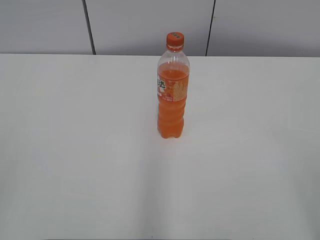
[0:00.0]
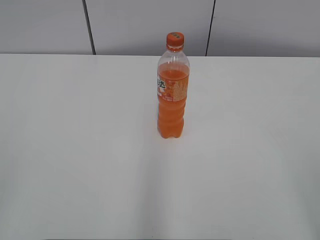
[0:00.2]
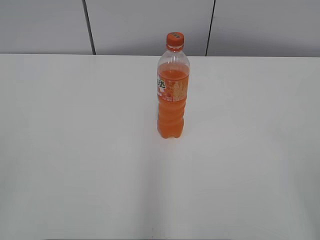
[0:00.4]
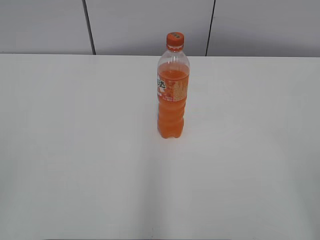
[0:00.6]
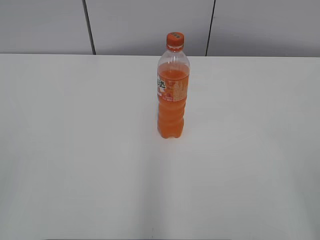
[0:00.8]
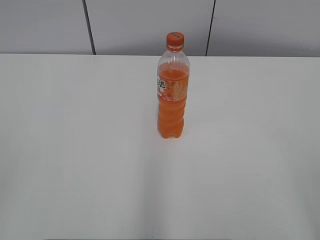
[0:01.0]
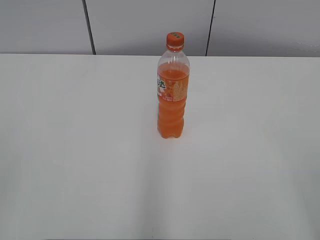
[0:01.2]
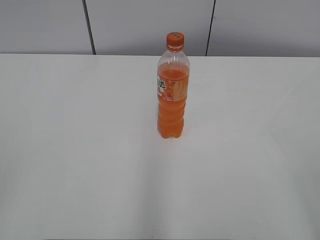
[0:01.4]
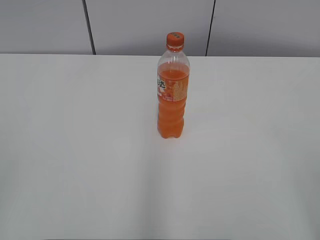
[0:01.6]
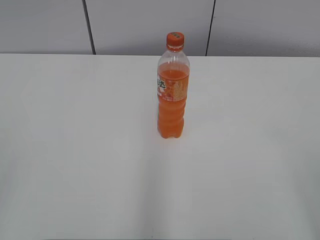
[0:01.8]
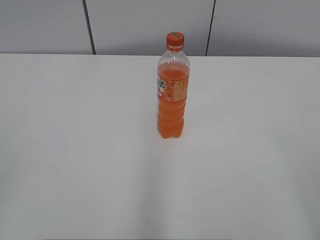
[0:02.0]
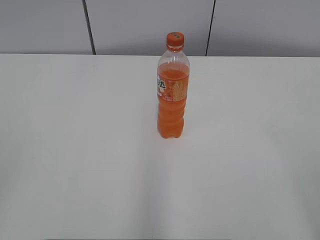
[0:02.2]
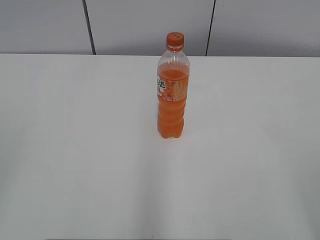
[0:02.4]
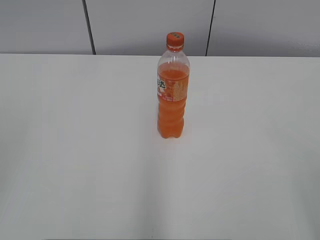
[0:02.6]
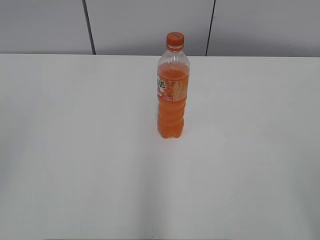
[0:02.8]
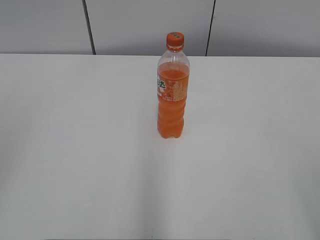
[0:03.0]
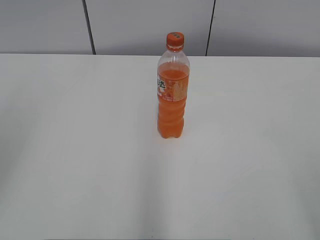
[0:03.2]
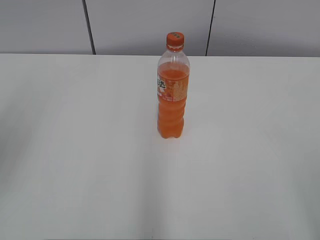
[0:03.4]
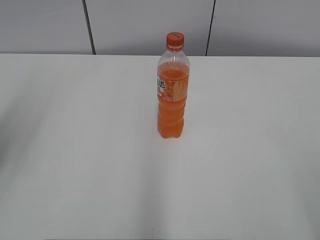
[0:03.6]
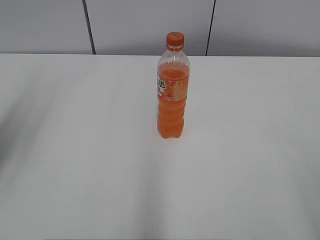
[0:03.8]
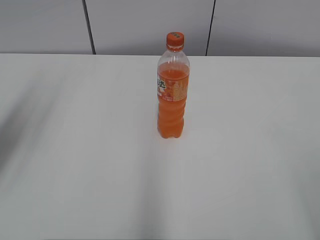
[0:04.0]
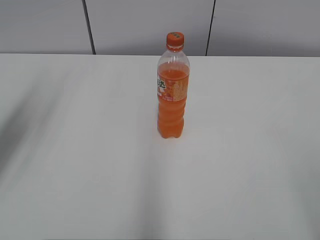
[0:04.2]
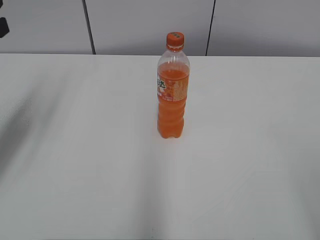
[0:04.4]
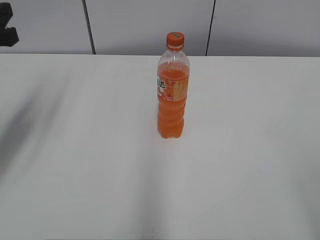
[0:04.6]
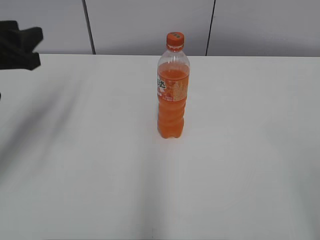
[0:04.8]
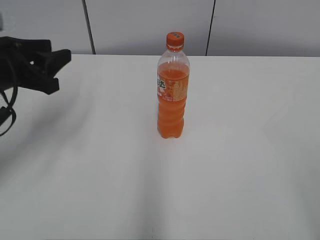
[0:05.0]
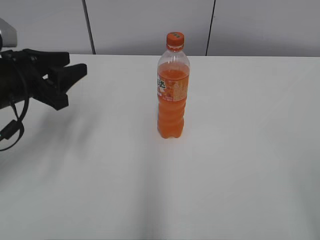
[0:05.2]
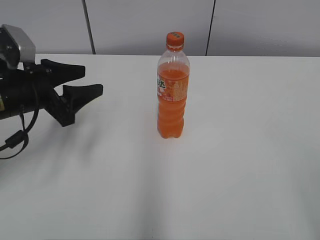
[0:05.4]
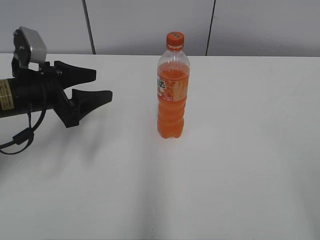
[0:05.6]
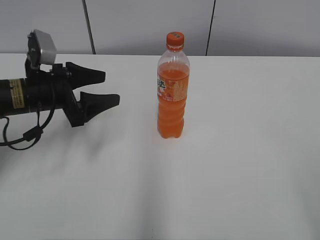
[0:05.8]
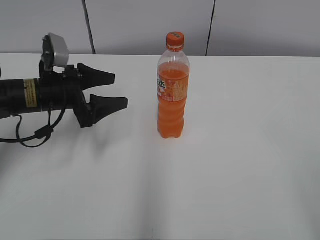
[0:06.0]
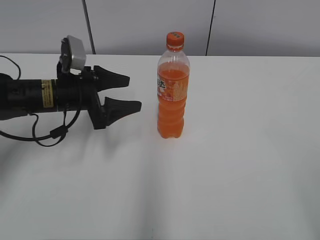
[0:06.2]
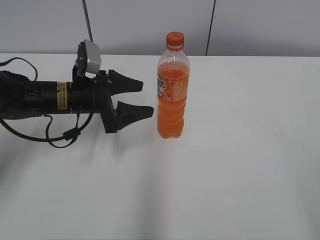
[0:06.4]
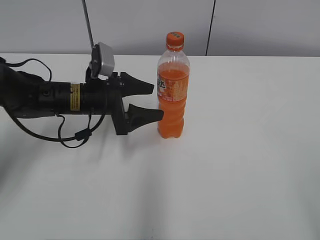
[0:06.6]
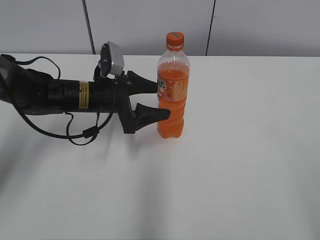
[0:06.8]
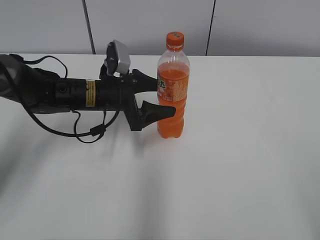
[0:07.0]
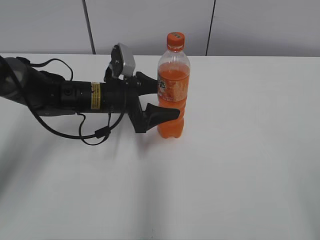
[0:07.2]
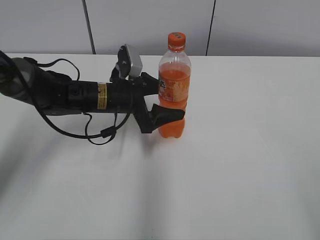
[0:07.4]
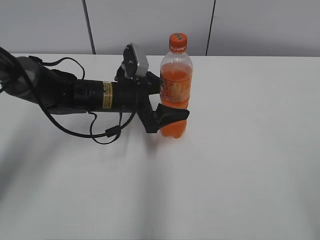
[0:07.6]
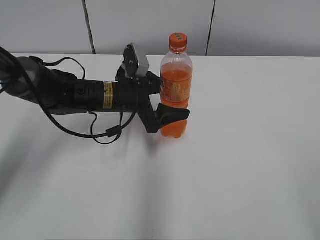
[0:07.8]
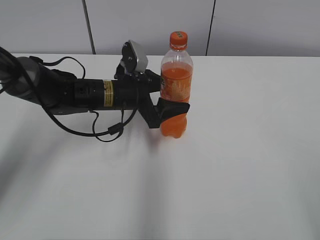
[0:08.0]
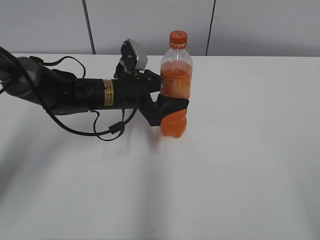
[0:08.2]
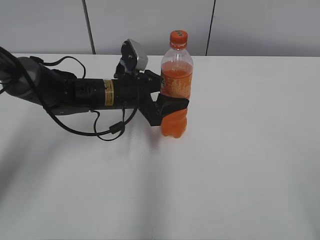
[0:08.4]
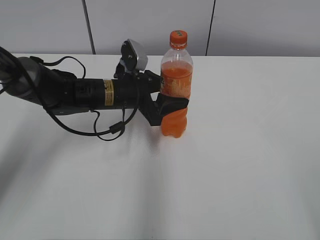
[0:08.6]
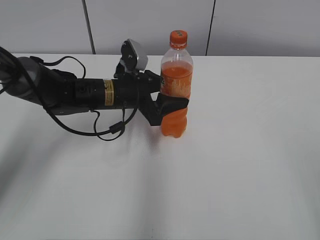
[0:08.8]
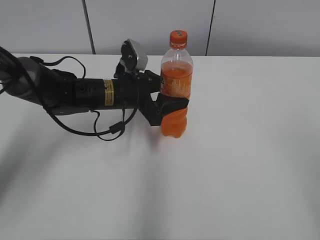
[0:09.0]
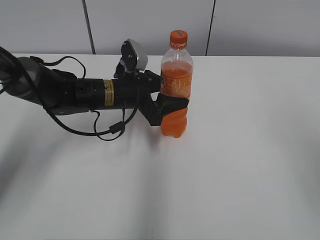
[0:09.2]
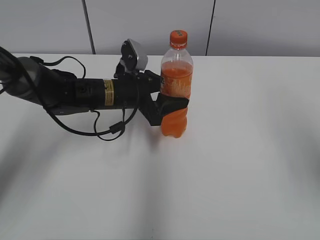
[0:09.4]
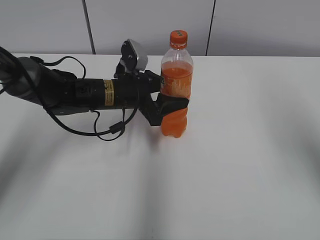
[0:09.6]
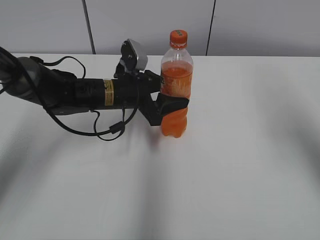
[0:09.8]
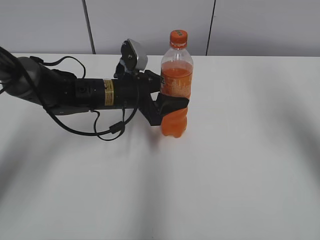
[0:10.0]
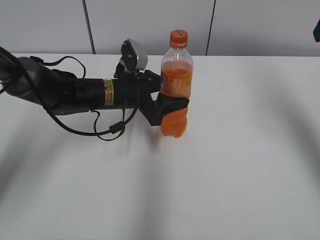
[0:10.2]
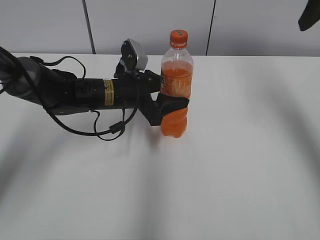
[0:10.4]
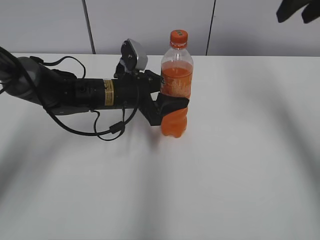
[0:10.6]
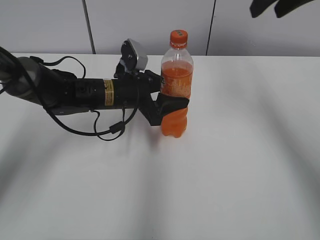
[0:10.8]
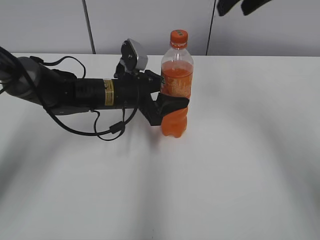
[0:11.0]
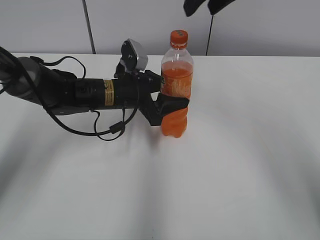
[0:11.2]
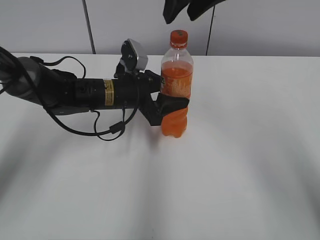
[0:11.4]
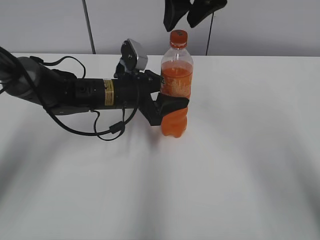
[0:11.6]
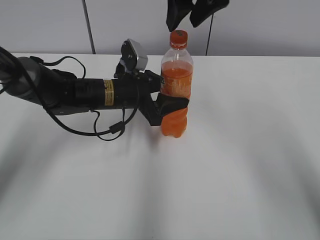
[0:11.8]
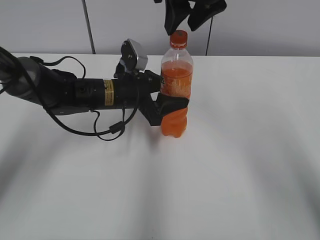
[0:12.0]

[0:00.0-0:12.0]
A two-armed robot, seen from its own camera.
Step, 0:00.0 to 0:08.8: Grab the Mirinda with the left hand.
0:03.0 to 0:04.4: The left gripper is displaced forward and downward by approximately 25 cm.
0:04.4 to 0:06.0: The left gripper heads downward, to the right and forward, covering some 20 cm, and opens its fingers.
0:06.0 to 0:07.6: The left gripper shifts about 10 cm to the right.
0:07.6 to 0:09.0: The right gripper goes roughly 5 cm upward, and closes up; the left gripper closes up.
0:09.0 to 0:10.4: The right gripper is displaced forward by roughly 30 cm.
0:10.4 to 0:12.0: The right gripper shifts roughly 20 cm to the left.

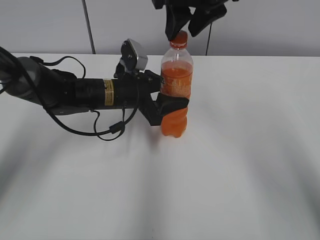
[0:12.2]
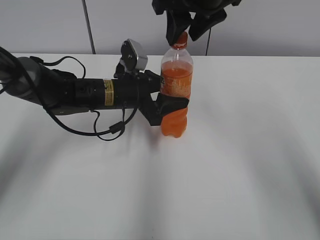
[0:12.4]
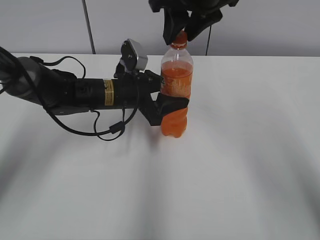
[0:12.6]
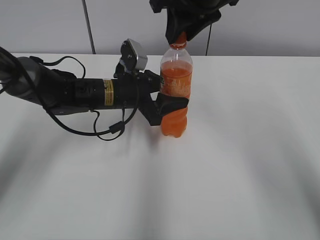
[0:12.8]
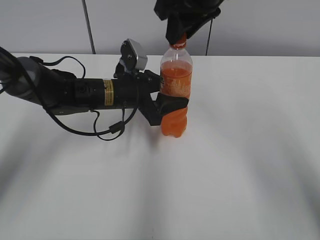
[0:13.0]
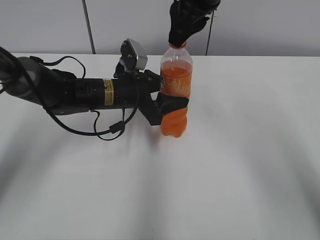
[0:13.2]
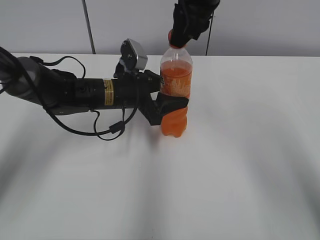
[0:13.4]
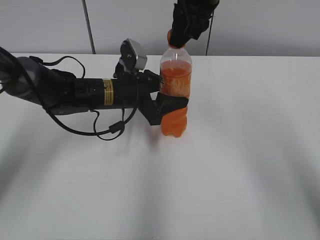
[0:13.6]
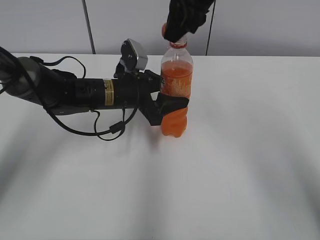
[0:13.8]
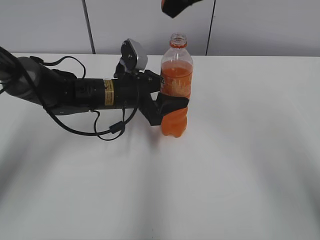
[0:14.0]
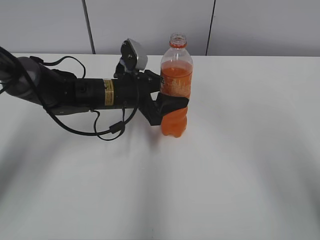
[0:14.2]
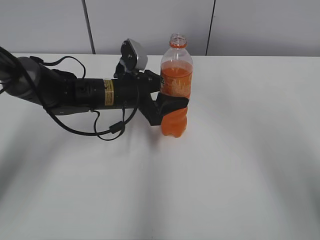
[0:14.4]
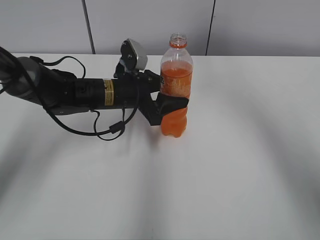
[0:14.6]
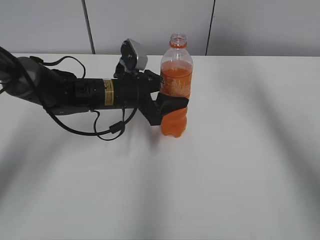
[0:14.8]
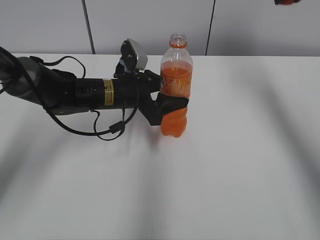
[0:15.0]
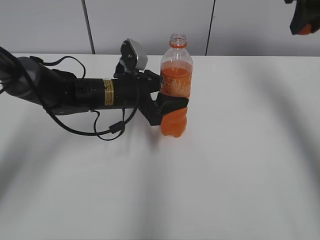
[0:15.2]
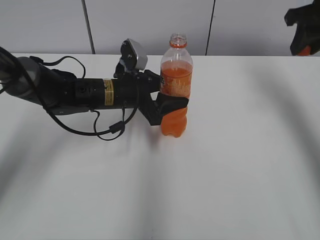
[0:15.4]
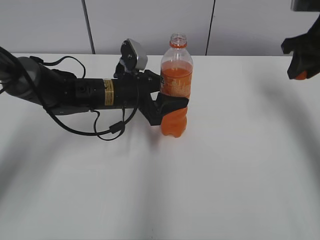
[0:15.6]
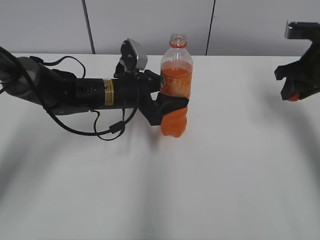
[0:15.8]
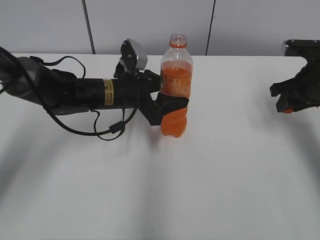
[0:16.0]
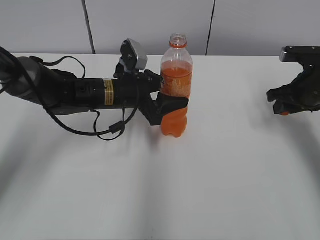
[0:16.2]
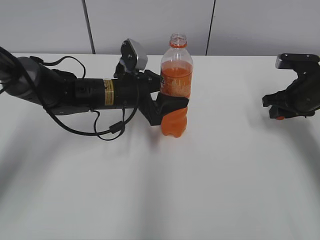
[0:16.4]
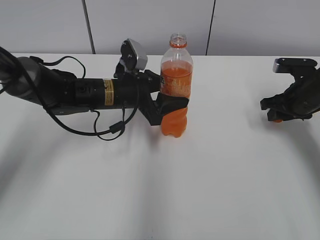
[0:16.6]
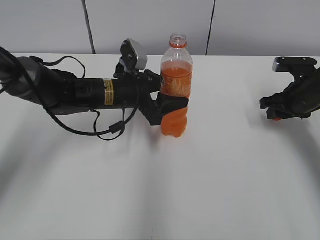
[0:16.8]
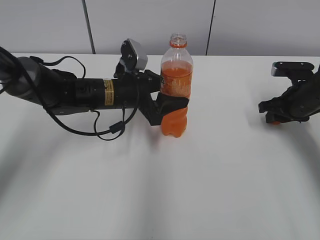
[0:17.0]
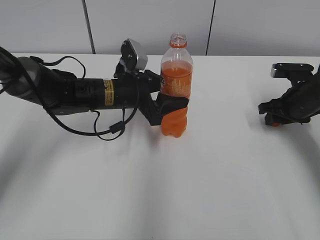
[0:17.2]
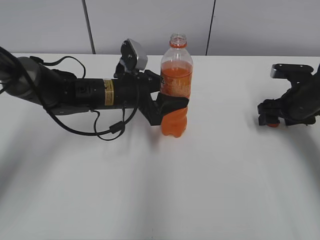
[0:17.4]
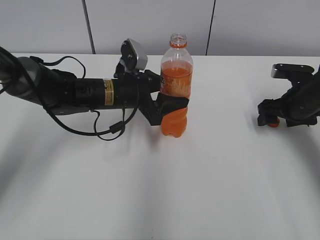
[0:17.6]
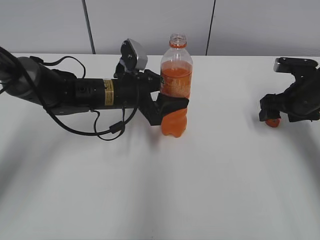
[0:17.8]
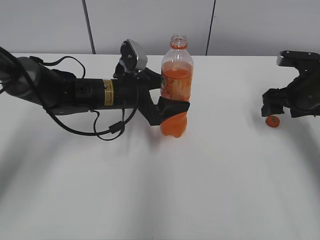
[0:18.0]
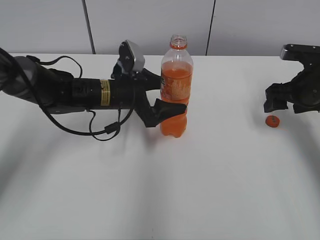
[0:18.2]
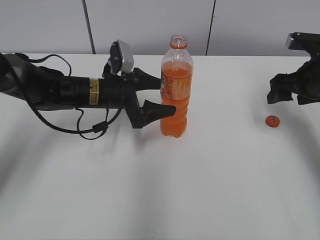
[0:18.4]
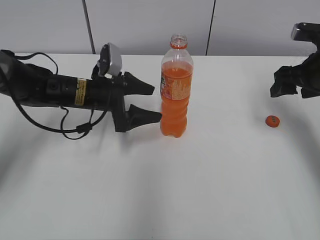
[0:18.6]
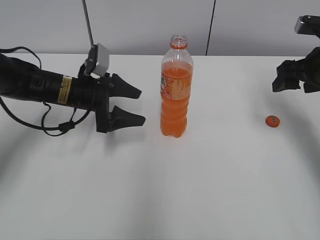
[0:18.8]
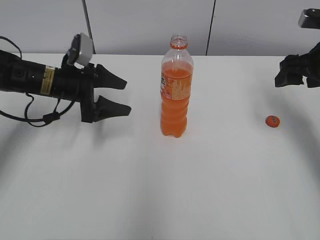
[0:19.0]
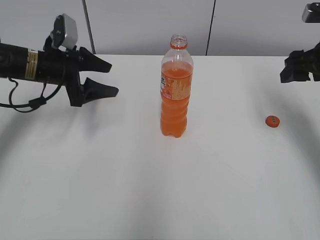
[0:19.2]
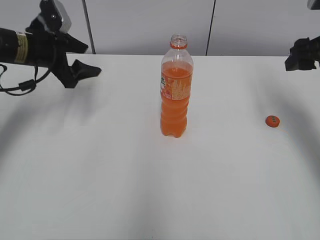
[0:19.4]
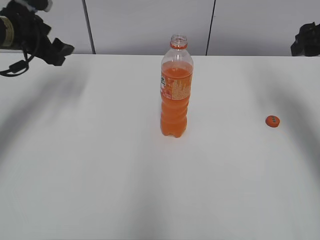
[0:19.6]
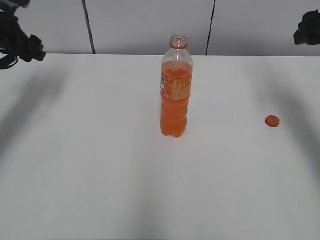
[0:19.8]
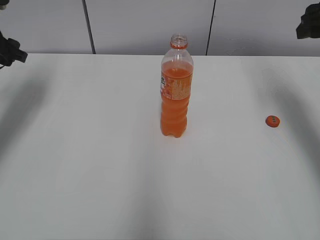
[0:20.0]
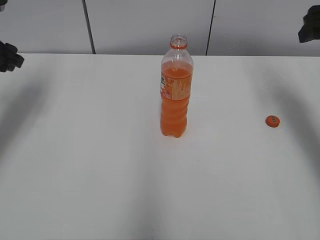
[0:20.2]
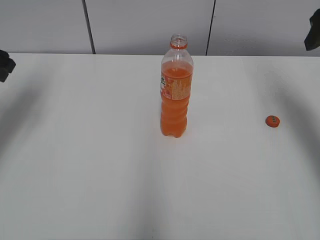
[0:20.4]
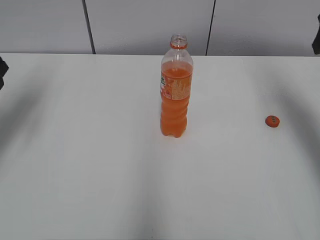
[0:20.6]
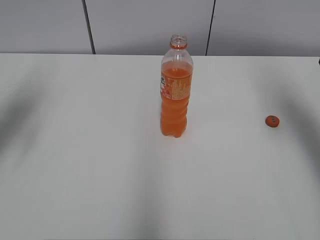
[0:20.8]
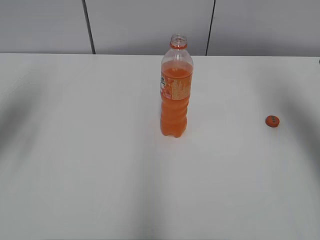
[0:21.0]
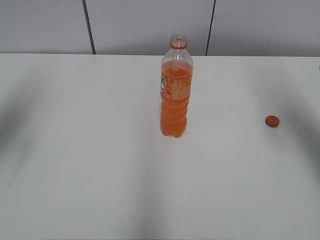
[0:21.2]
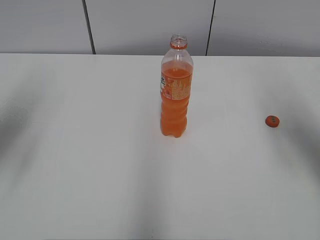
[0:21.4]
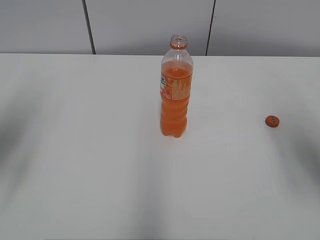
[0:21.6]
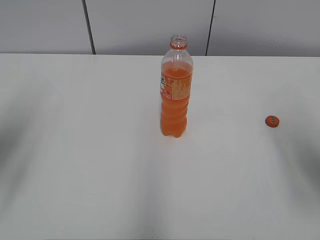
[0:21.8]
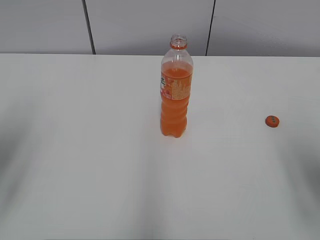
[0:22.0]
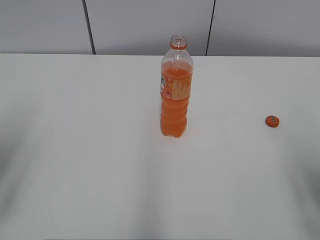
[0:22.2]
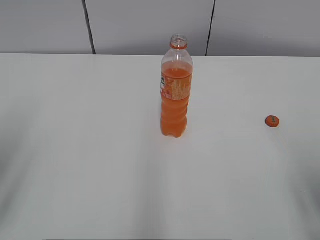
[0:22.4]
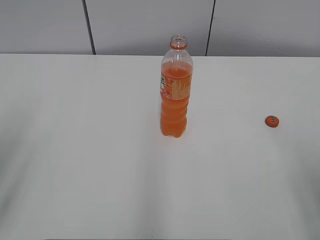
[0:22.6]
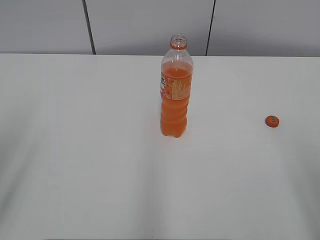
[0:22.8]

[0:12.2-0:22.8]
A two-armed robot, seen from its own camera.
Step, 0:13.8 to 0:17.2: Place the bottle cap on the right.
0:12.2 to 0:13.8: The right gripper closes up.
0:13.8 to 0:15.2: The right gripper heads to the right, covering approximately 20 cm.
0:15.2 to 0:16.8: The right gripper travels downward by about 20 cm.
0:16.8 to 0:18.2: The left gripper opens; the right gripper opens its fingers.
0:18.2 to 0:19.8: The left gripper shifts about 25 cm to the left and upward; the right gripper heads upward, covering some 15 cm.
0:19.8 to 0:21.2: The right gripper goes roughly 5 cm backward; the left gripper travels backward and upward by about 20 cm.
0:21.2 to 0:22.8: Both grippers travel together backward, some 20 cm.
